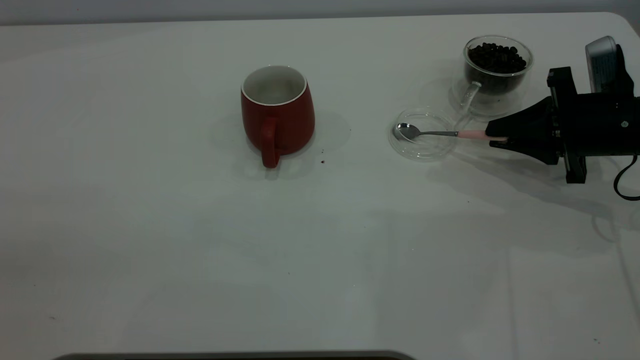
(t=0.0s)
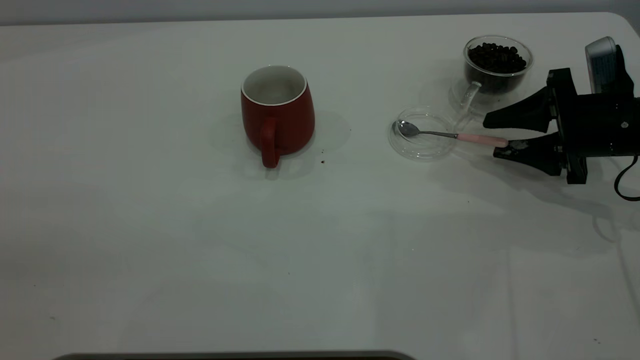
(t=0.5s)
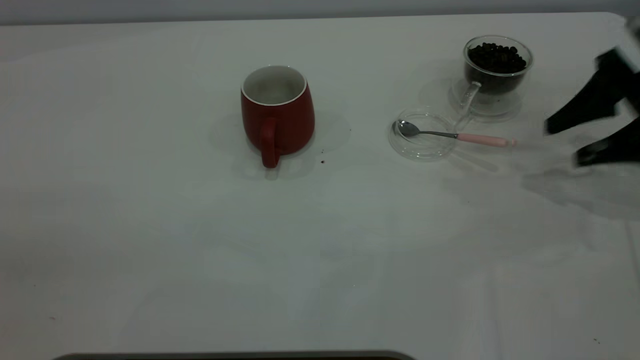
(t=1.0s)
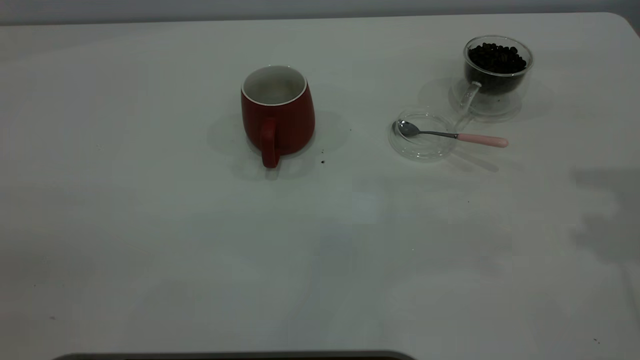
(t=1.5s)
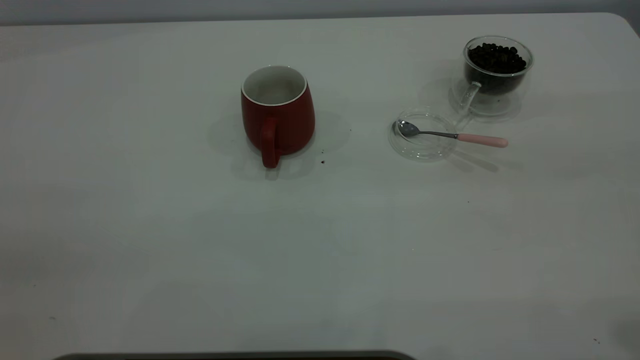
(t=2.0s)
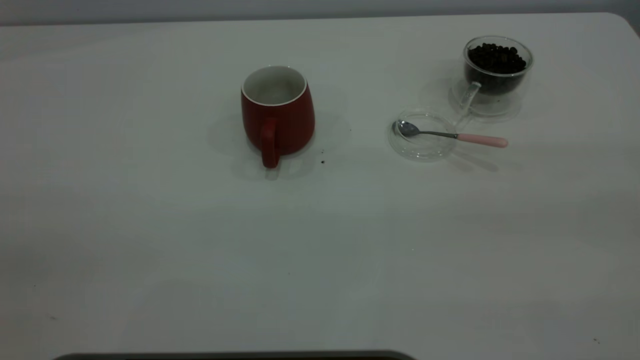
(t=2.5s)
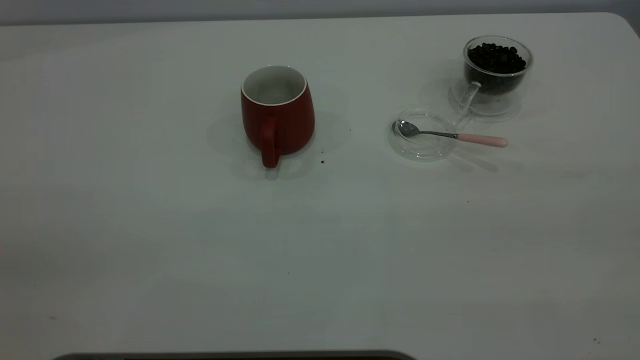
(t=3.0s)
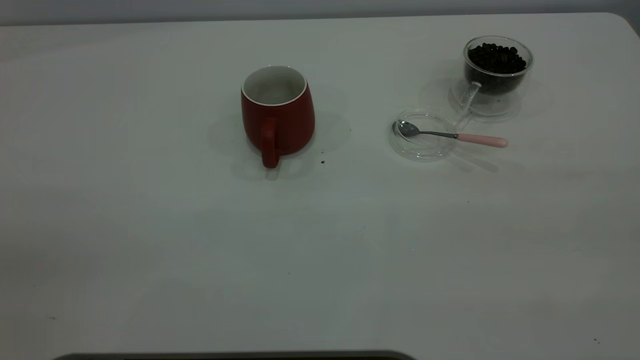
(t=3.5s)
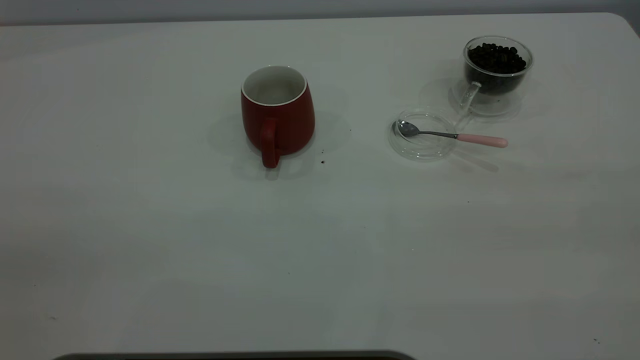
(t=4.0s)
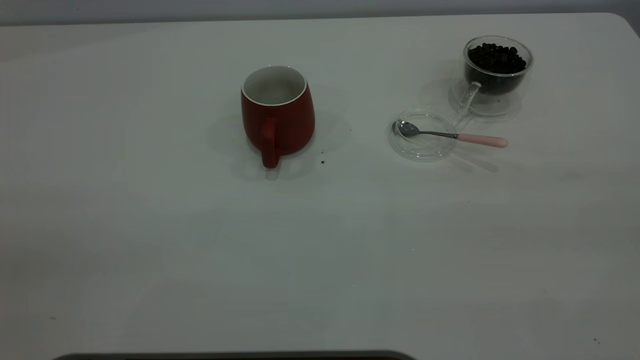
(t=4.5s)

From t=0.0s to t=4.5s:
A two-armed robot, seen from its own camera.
Task of the whole recording: the left gripper place the red cup in the center of the table, the right gripper take the pink spoon from the cup lid and scoop out the coffee beans from the coffee cup and put them into the red cup, the right gripper put the spoon back into the cup lid.
From t=0.0s to t=2.0s: The right gripper heads upward and backward, covering about 40 cm, and opens up.

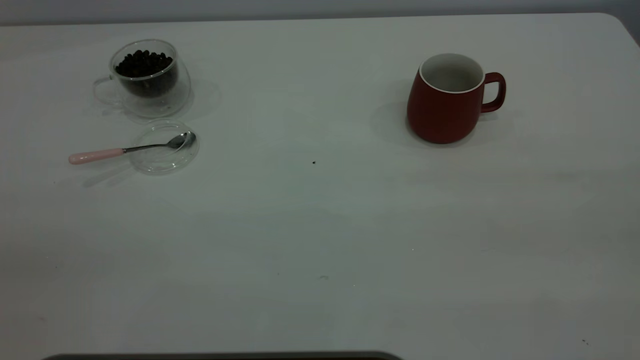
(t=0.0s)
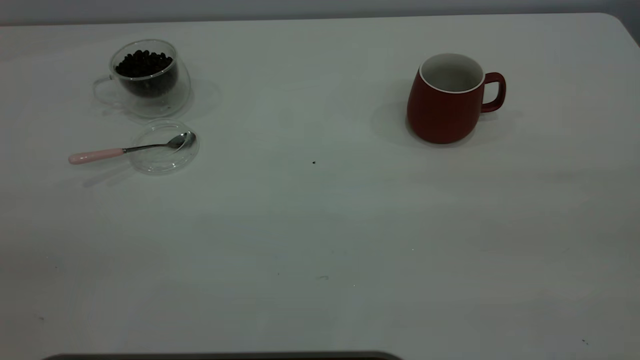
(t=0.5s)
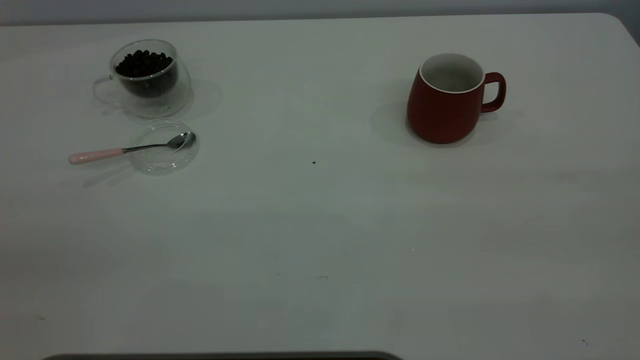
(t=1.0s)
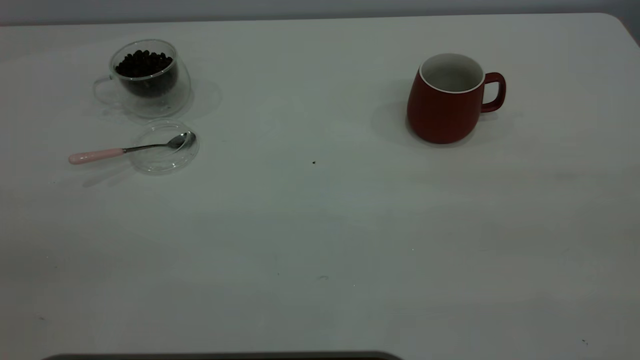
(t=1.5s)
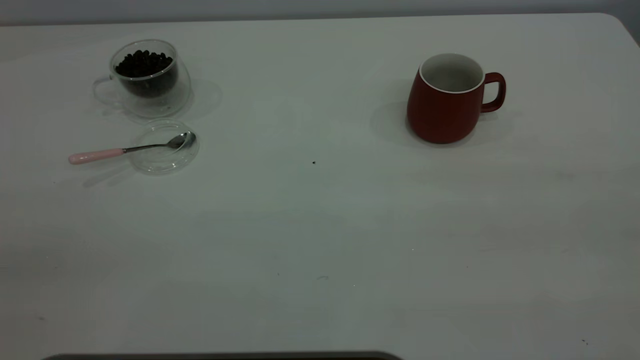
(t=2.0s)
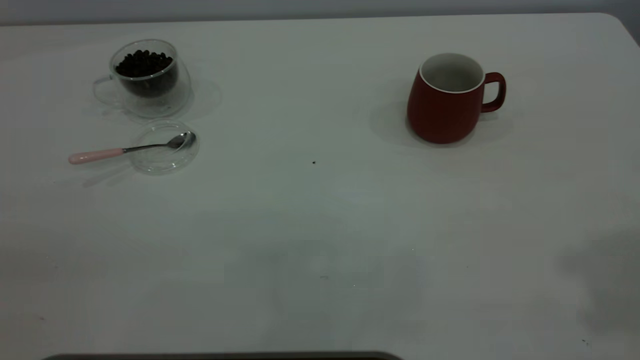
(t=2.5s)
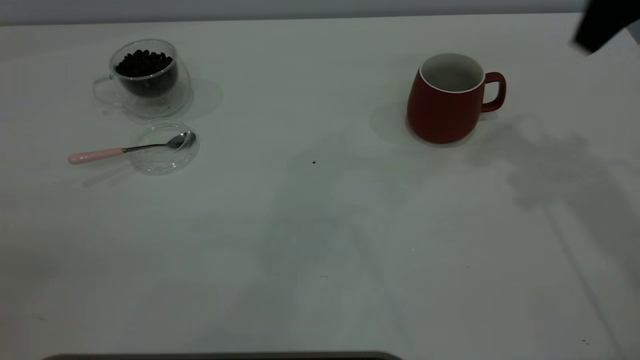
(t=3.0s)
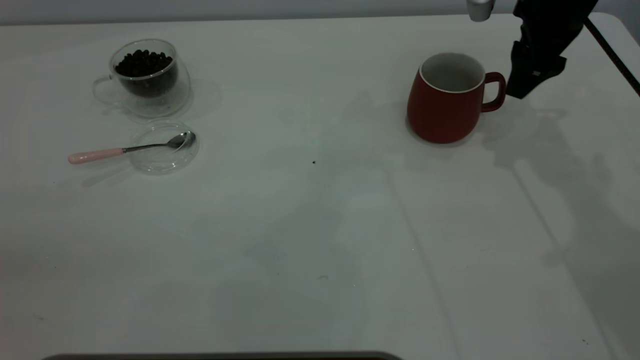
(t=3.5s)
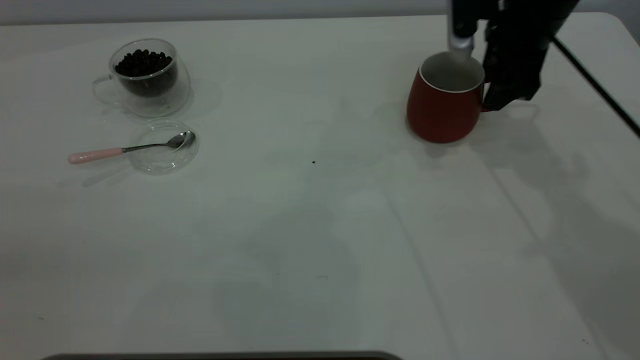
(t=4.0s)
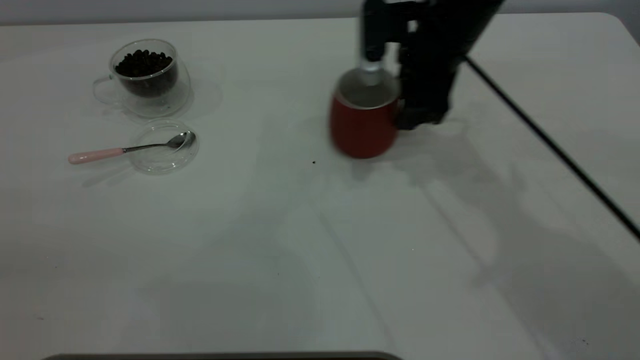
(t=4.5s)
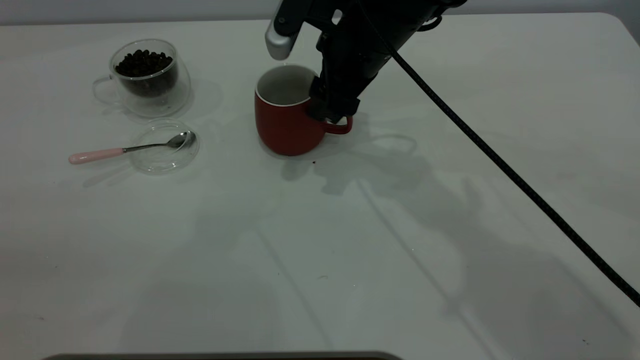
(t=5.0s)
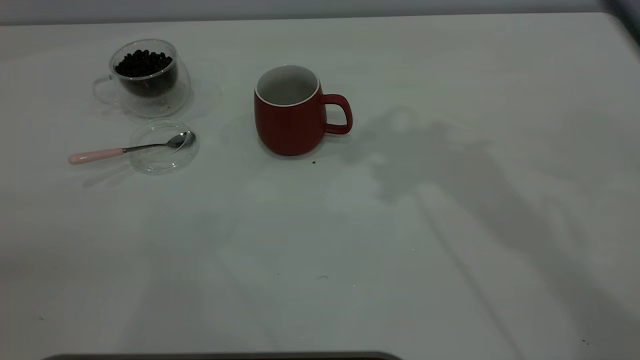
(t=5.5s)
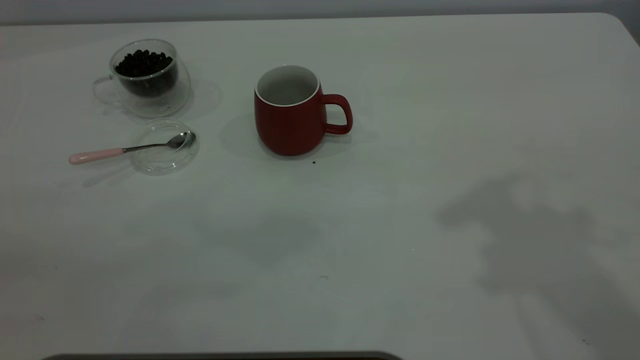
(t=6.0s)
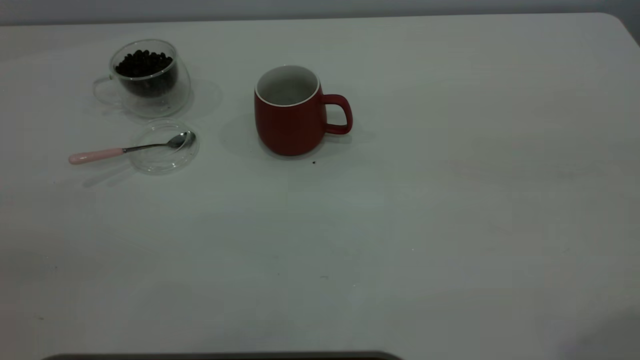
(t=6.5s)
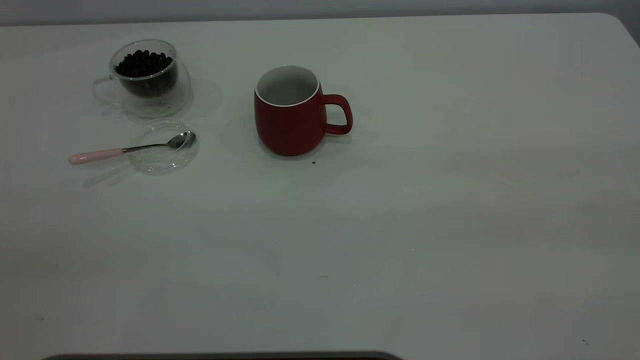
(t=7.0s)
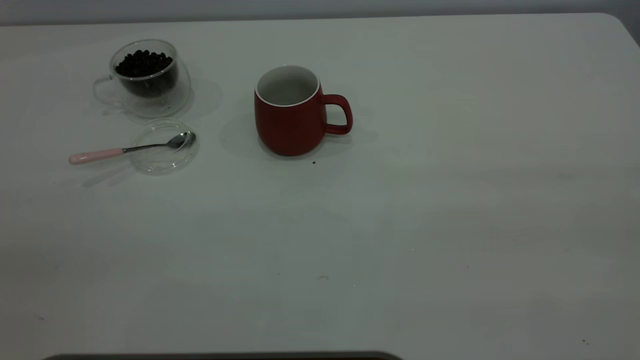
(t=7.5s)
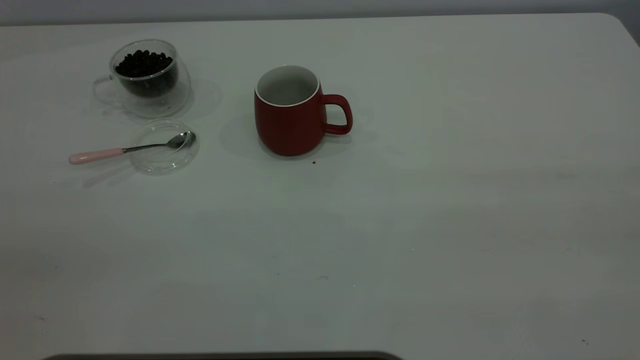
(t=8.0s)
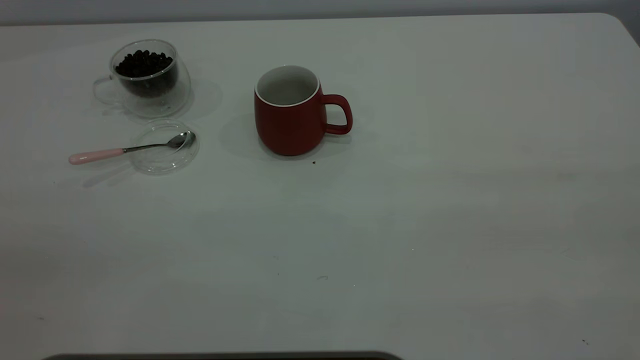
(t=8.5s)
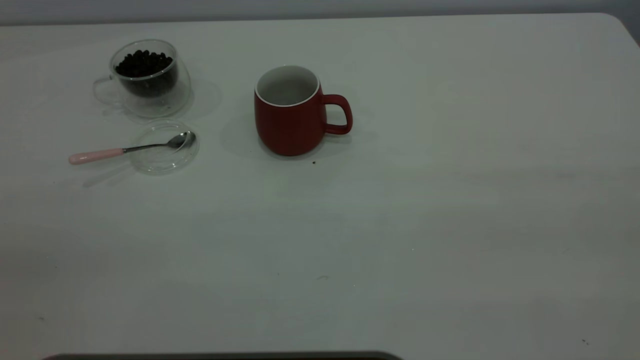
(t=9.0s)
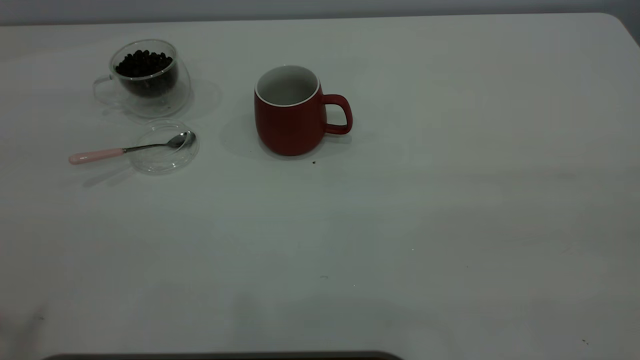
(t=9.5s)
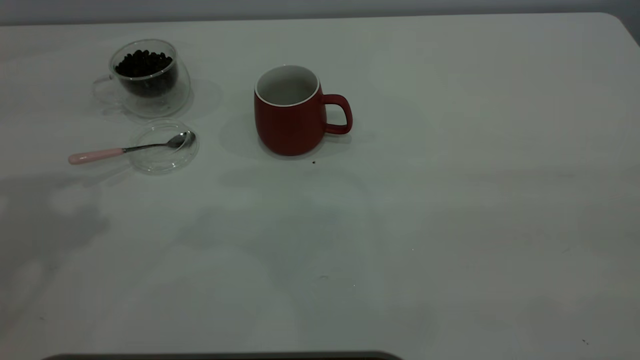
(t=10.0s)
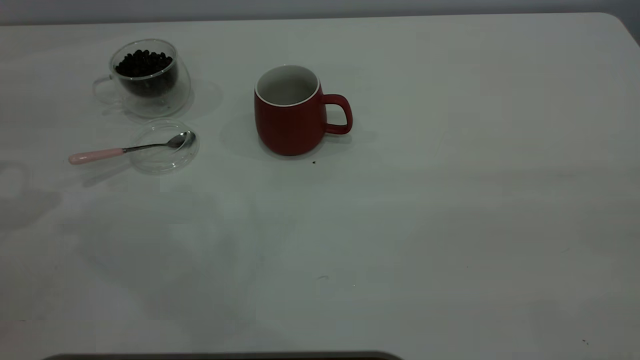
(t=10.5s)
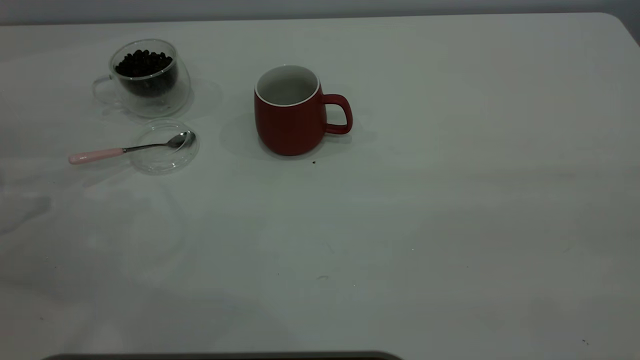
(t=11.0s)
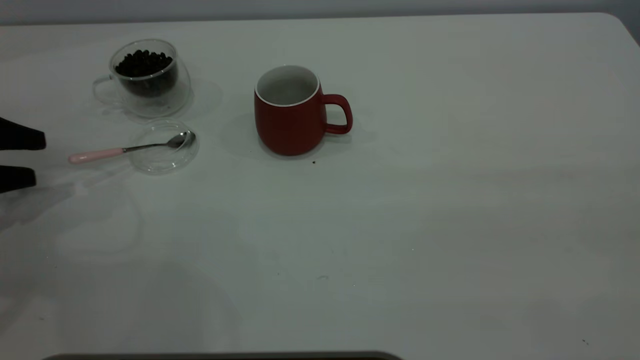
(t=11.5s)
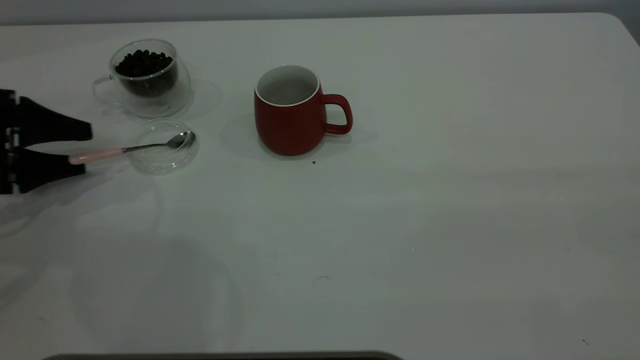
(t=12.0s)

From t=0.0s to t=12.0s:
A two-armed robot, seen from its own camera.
Task of the whole recording: the right gripper place the red cup in the center of the table, the left gripper take the pink spoon from the cup lid and scoop out the coffee beans from the coffee cup and put them into the red cup, the left gripper put the spoon back into the cup lid.
Step, from t=0.0s to t=5.0s: Move the cup to the center of view.
From t=0.0s to t=2.0s: Both grippers stay put.
From t=2.0s to t=4.0s: The right gripper moves forward and downward, roughly 50 cm.
From t=4.0s to t=6.0s: The right gripper moves upward and backward, about 35 cm.
From t=10.0s to t=12.0s: The left gripper travels downward by roughly 30 cm.

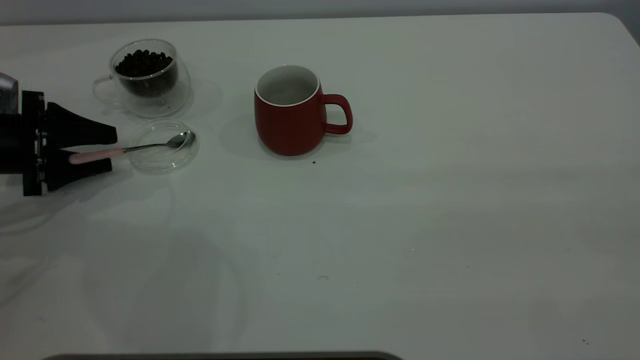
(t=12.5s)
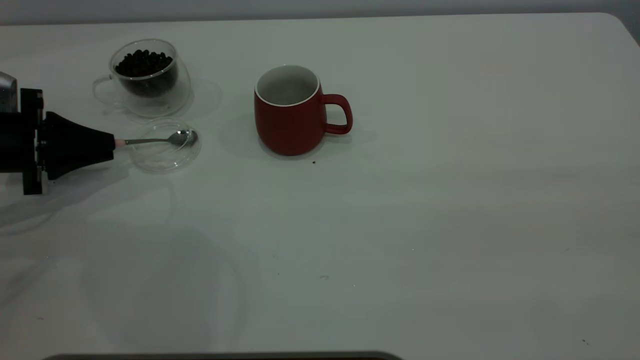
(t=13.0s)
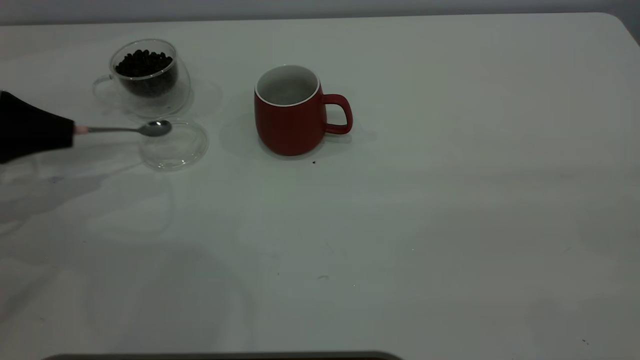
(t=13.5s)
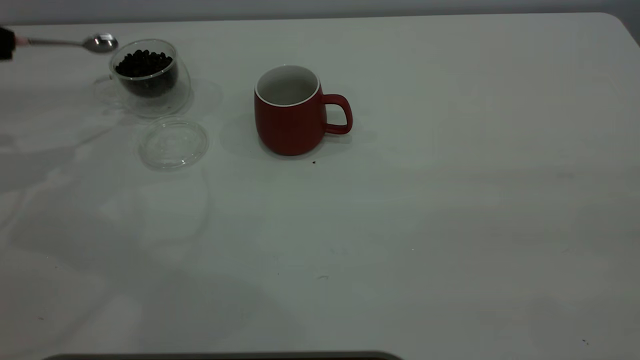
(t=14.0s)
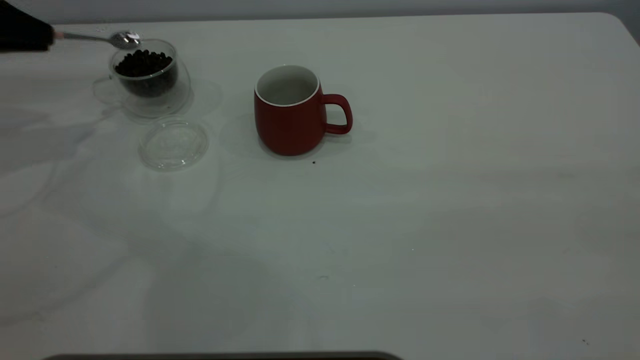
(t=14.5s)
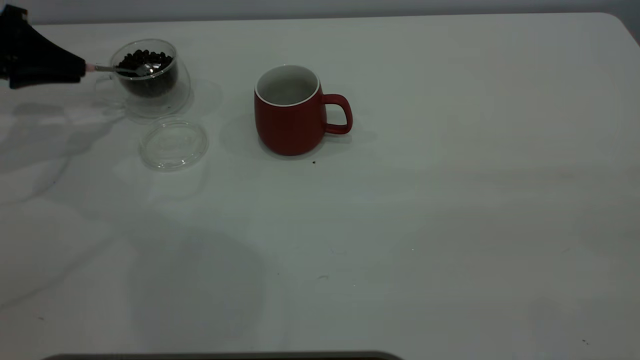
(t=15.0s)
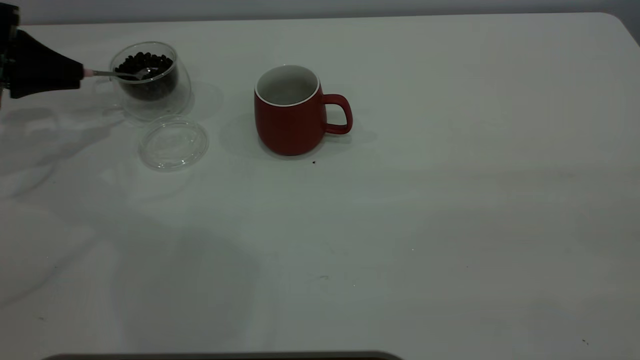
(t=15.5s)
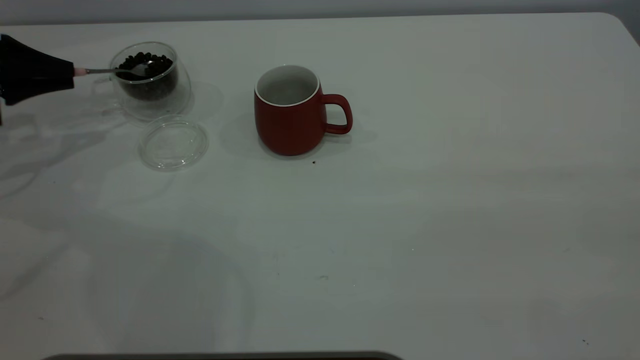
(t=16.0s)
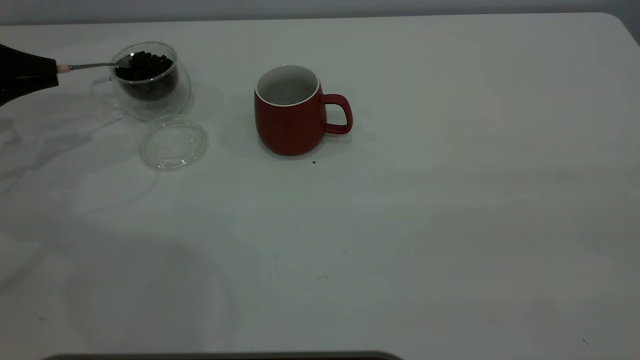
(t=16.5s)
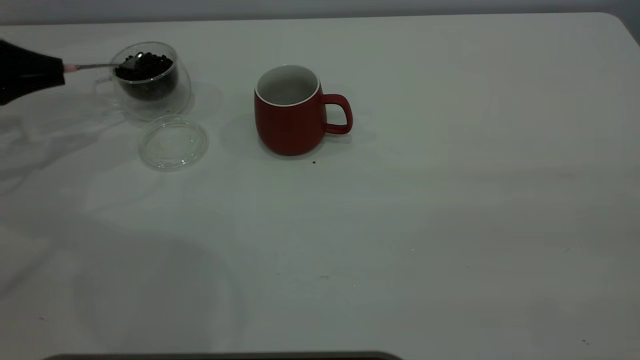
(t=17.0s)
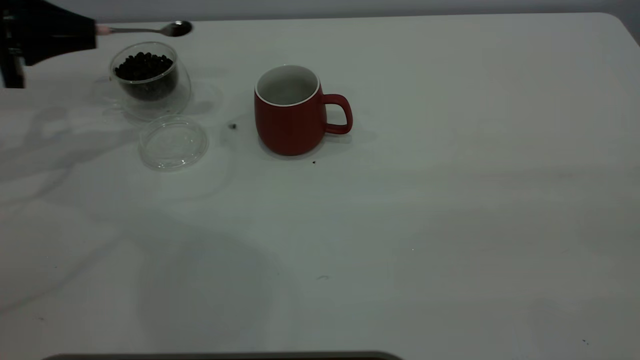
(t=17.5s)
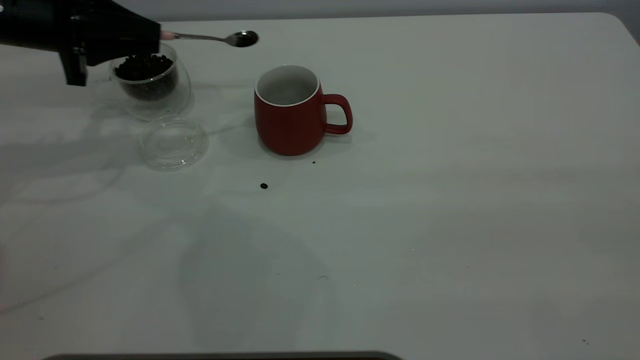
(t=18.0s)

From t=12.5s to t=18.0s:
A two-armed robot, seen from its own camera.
Task of the whole recording: the right gripper place the red cup in the center of the table, the left gripper take the pink spoon from the cup lid and scoop out the coffee beans from the coffee cup and put them into the red cup, the left gripper put the spoon back into the cup lid.
From t=12.5s to t=14.5s: The left gripper travels upward and forward by roughly 15 cm, and closes.
From t=14.5s to t=16.0s: The left gripper moves downward, roughly 5 cm.
From t=16.0s to t=18.0s: The left gripper shifts some 10 cm to the right.
